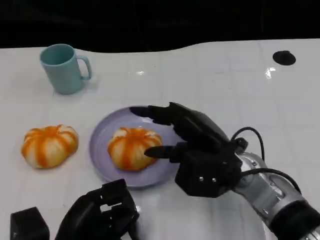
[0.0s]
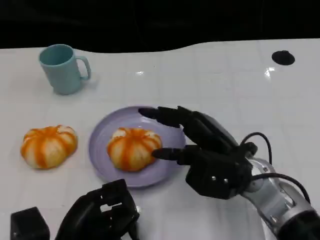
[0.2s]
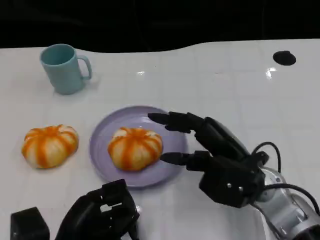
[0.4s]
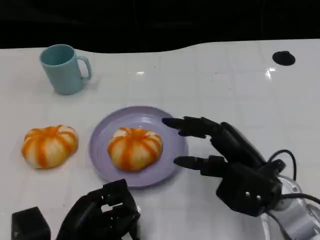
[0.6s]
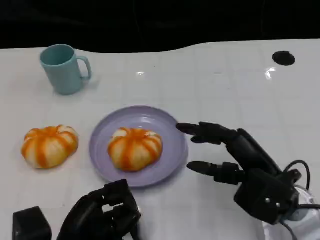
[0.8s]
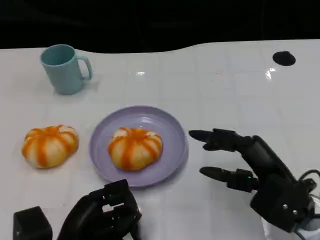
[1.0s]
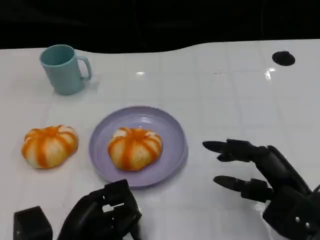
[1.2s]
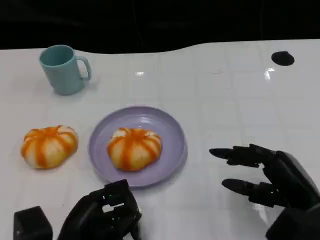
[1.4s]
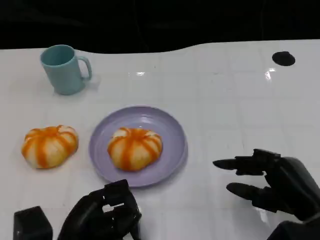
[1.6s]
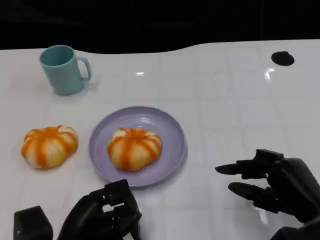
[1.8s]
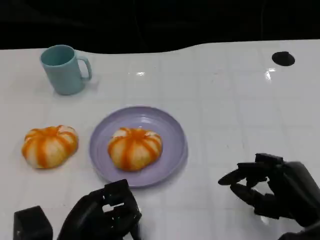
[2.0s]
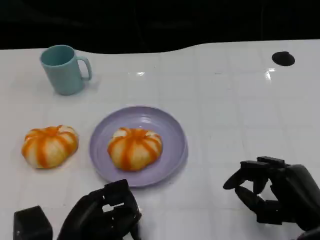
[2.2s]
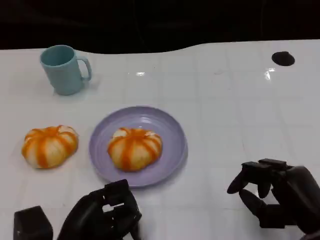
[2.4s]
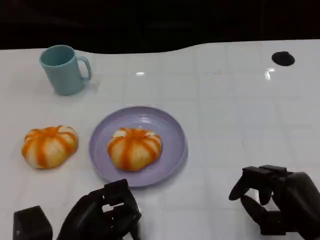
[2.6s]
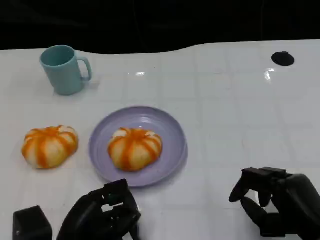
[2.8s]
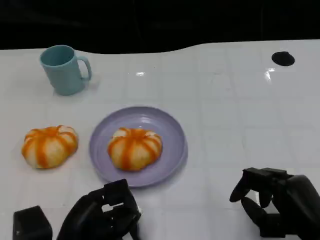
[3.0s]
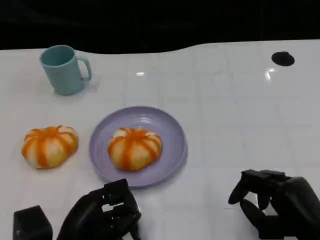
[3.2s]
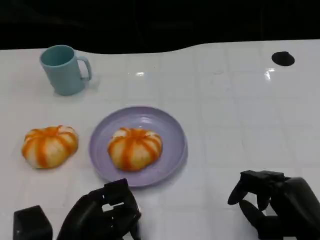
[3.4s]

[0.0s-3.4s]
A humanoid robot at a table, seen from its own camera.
Task of the whole recording: Grasp the bread from the table and place it into the plate.
0.0s to 1.6s: The right hand shifts some 15 cm to the right and backward.
1.6s to 3.4s: There are only small adjustments of the hands.

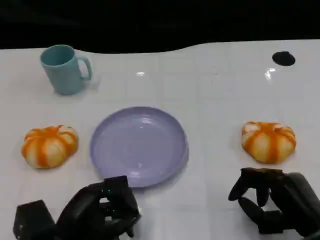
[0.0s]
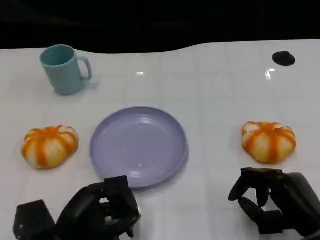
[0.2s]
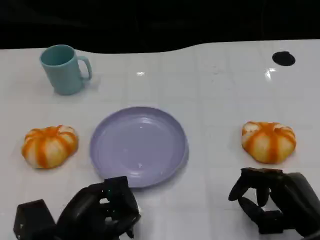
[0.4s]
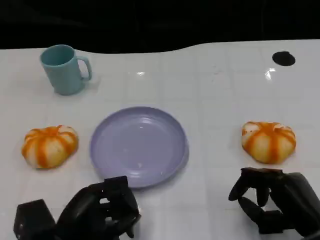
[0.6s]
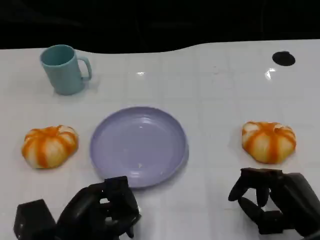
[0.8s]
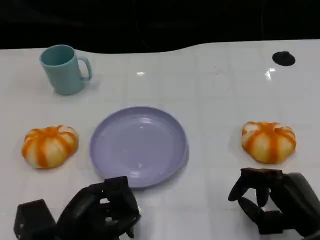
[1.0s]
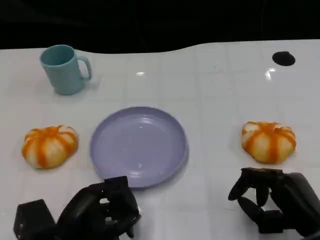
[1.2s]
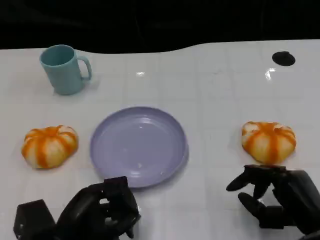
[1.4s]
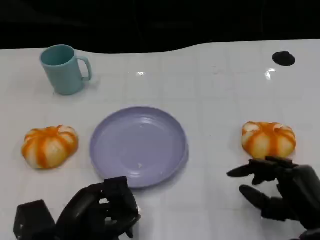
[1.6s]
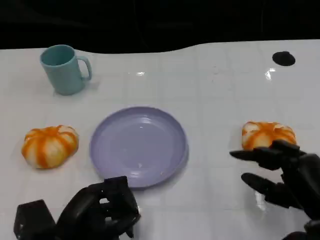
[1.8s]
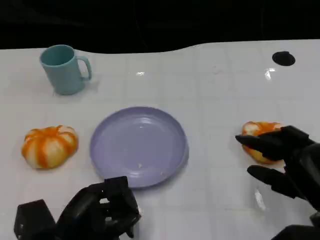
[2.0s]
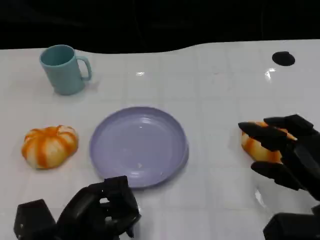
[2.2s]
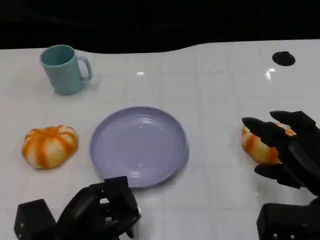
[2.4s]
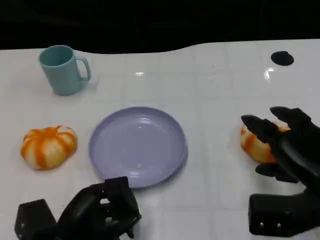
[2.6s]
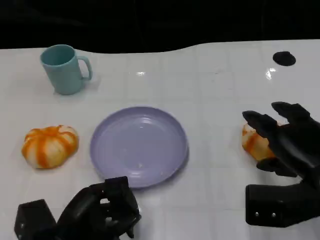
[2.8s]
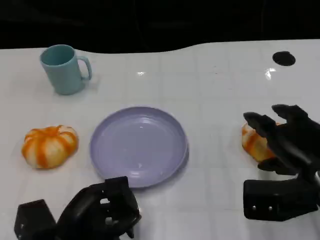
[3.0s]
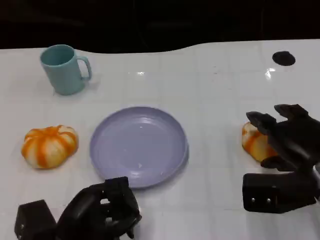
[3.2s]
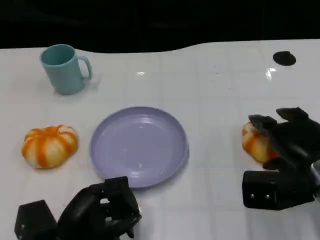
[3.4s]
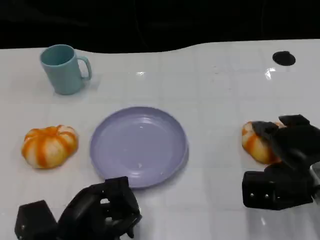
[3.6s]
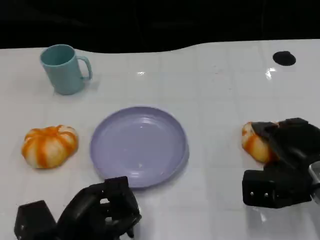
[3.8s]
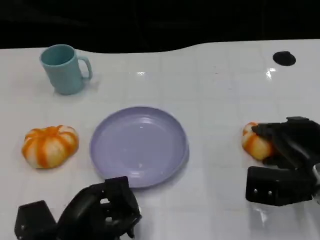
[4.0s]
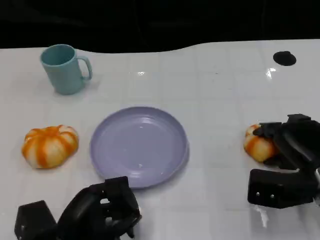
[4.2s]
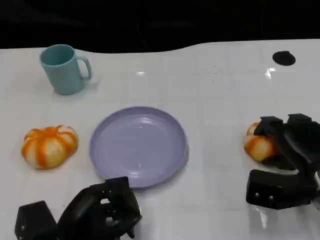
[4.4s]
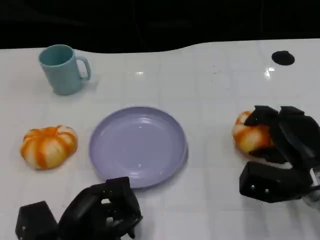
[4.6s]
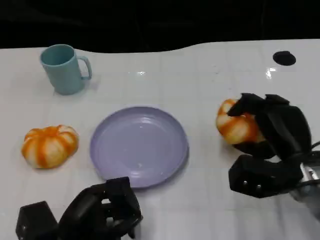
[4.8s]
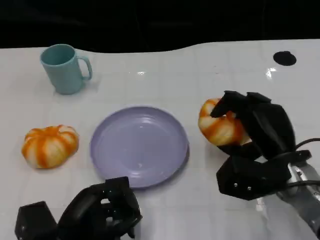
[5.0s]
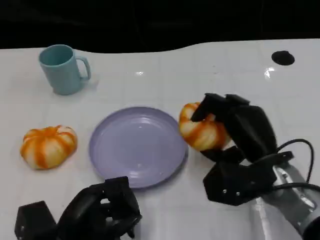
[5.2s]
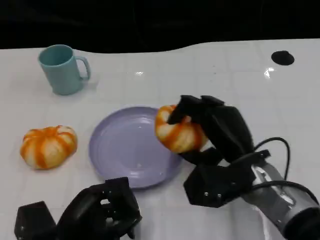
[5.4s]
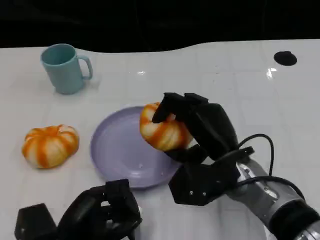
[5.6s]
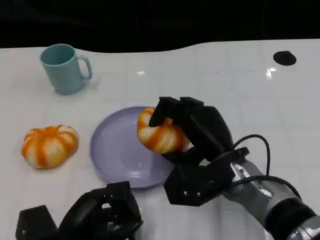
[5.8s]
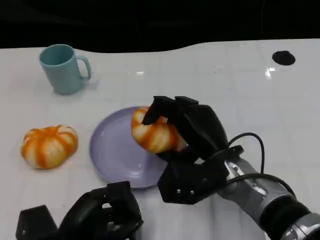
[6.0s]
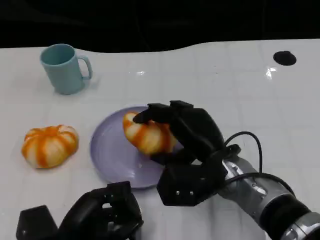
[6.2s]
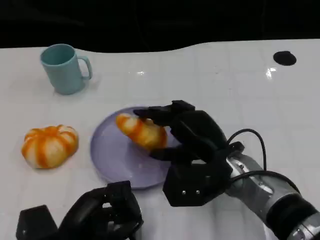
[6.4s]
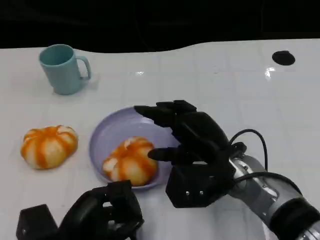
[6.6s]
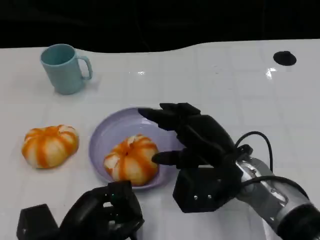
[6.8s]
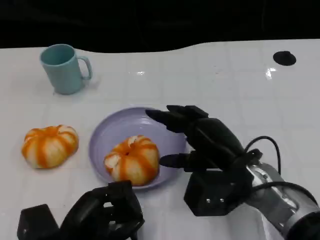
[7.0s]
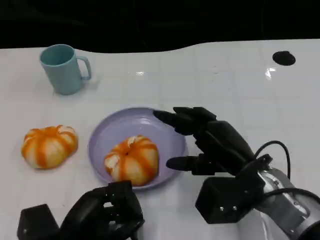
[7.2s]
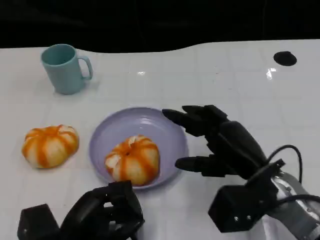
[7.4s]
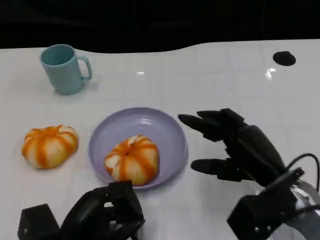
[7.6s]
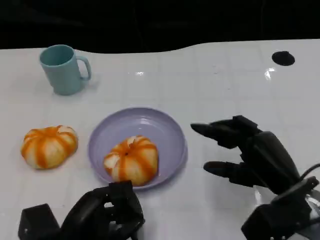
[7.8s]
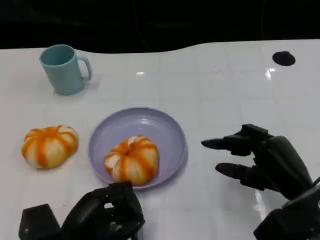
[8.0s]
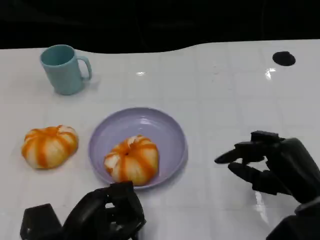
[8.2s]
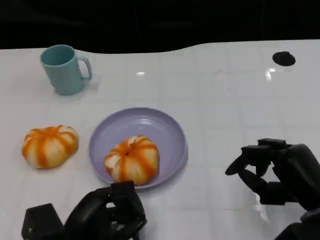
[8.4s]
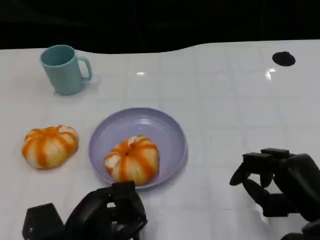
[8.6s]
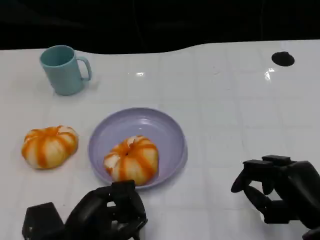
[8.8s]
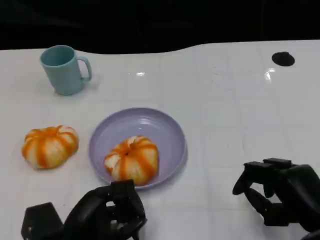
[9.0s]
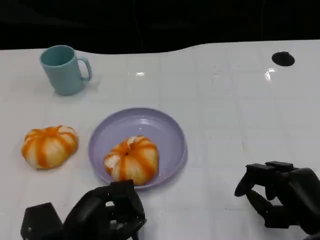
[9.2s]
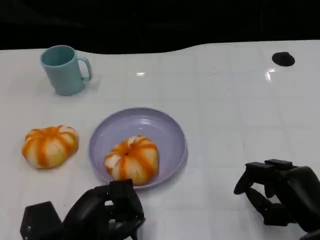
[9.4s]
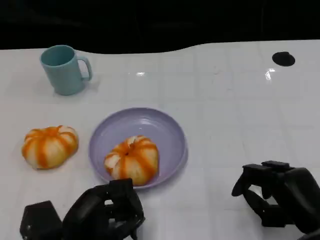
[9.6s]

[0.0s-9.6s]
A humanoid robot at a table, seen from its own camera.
Task of the whole recording: Grasp the bread from the table and place it into the plate.
0.0s to 1.6s: The hands stay close to where they were, moving slightly.
1.6s to 3.2s: The right hand heads forward, covering some 5 cm.
4.8s to 6.4s: The right hand heads to the left, covering about 10 cm.
6.4s to 8.0s: The right hand travels to the right by some 10 cm.
8.0s to 9.6s: The right hand changes place by about 5 cm.

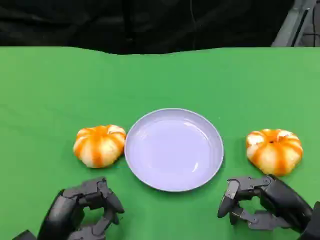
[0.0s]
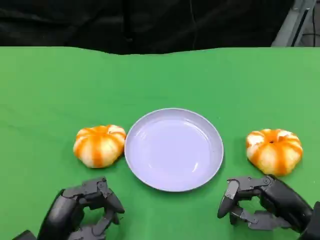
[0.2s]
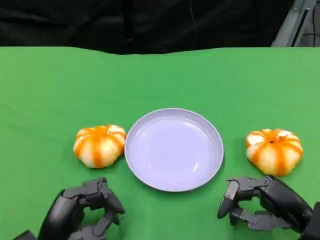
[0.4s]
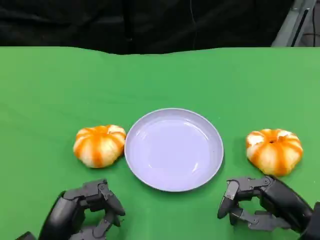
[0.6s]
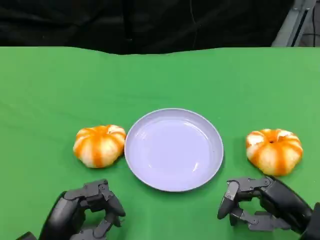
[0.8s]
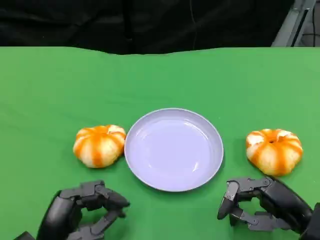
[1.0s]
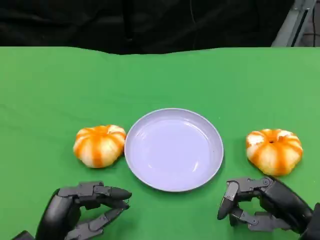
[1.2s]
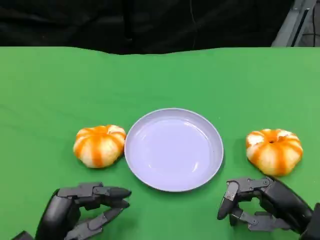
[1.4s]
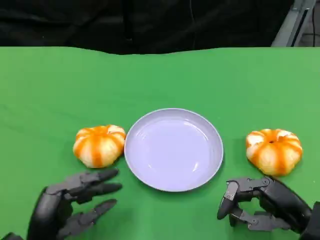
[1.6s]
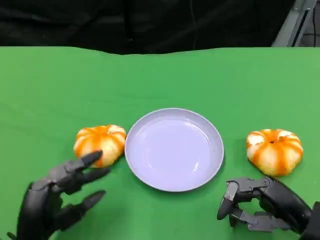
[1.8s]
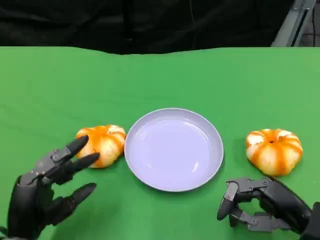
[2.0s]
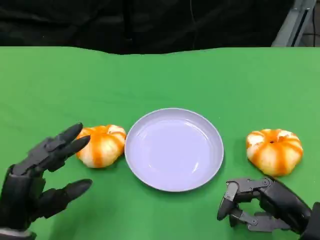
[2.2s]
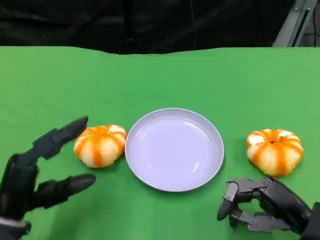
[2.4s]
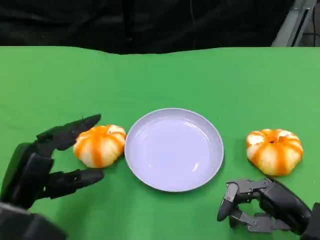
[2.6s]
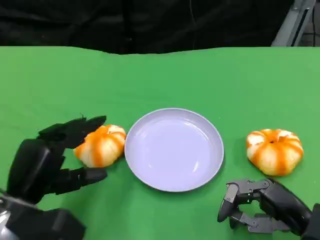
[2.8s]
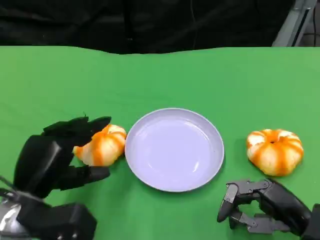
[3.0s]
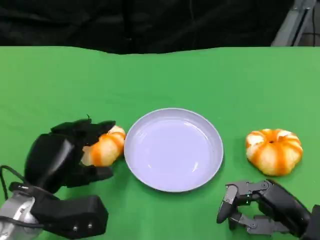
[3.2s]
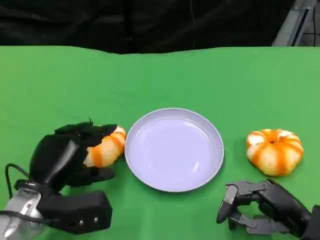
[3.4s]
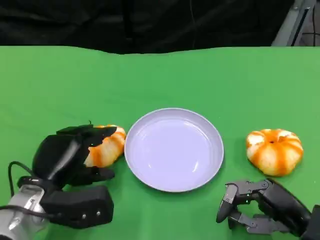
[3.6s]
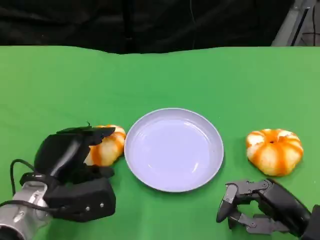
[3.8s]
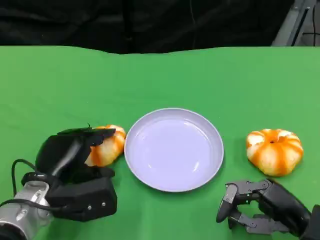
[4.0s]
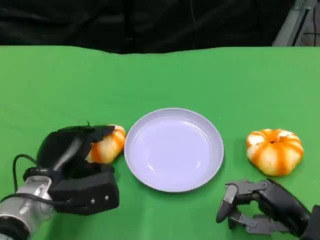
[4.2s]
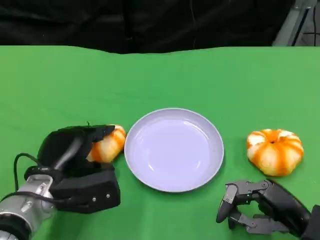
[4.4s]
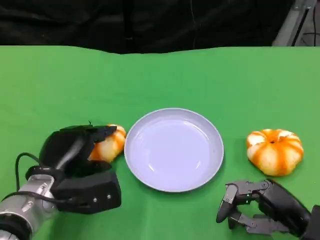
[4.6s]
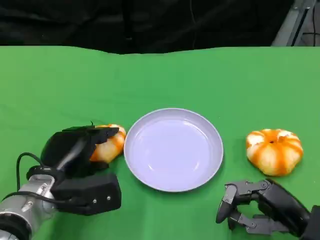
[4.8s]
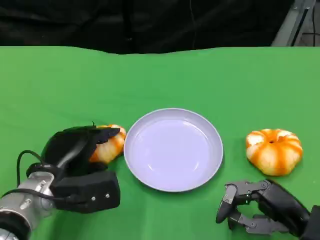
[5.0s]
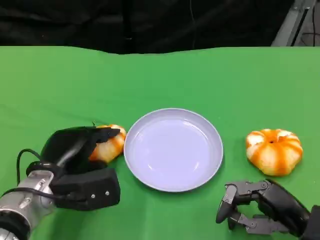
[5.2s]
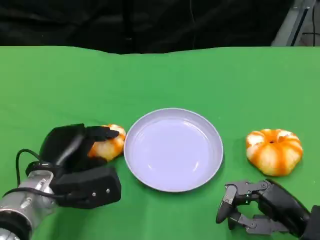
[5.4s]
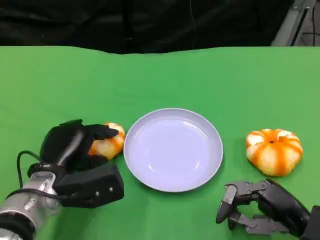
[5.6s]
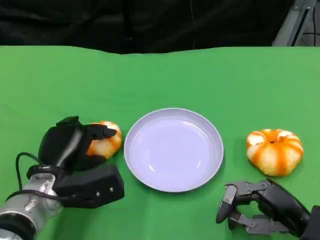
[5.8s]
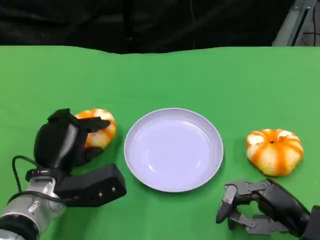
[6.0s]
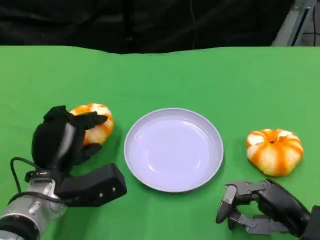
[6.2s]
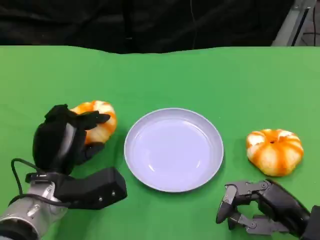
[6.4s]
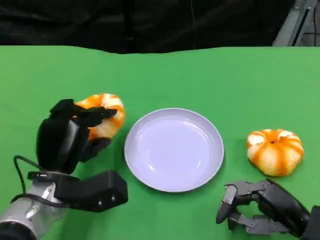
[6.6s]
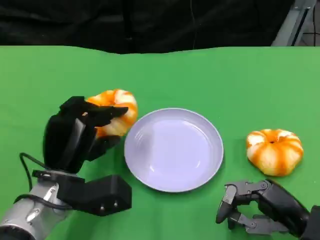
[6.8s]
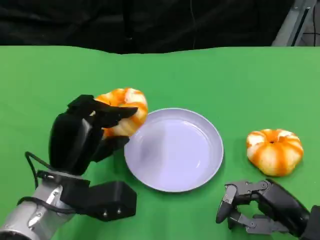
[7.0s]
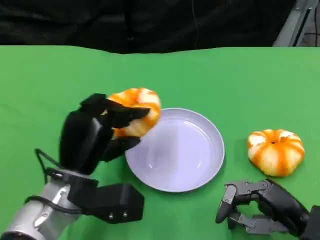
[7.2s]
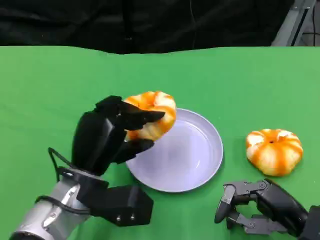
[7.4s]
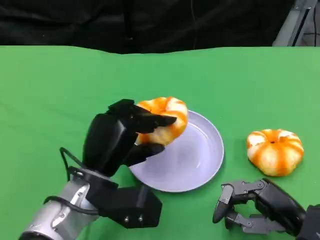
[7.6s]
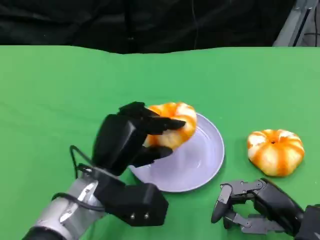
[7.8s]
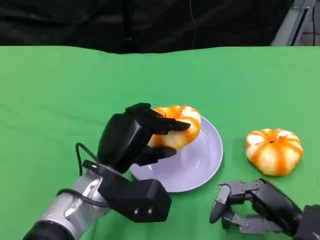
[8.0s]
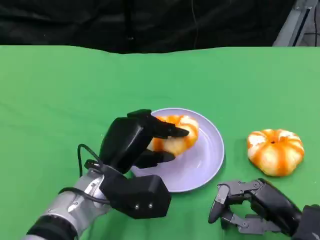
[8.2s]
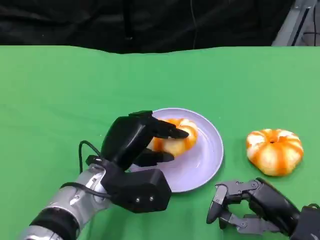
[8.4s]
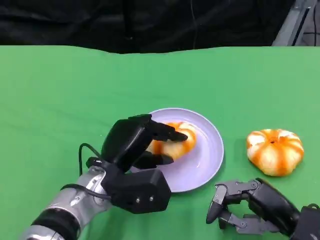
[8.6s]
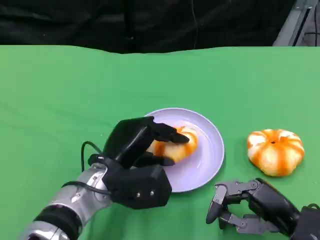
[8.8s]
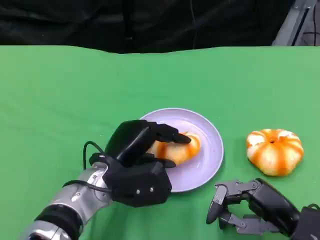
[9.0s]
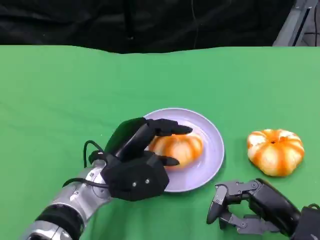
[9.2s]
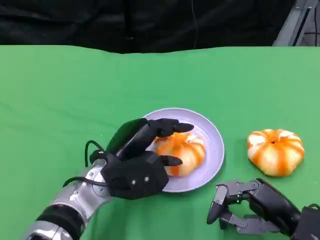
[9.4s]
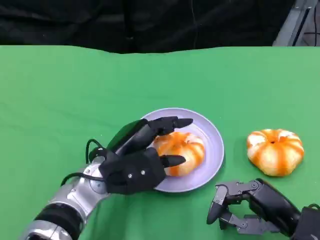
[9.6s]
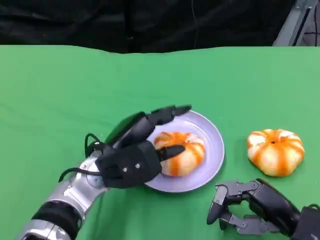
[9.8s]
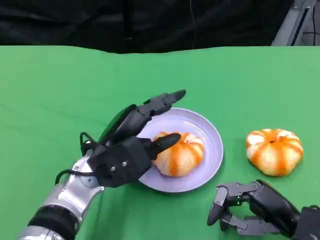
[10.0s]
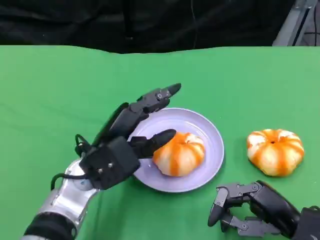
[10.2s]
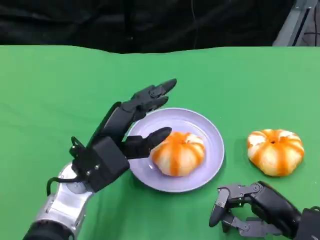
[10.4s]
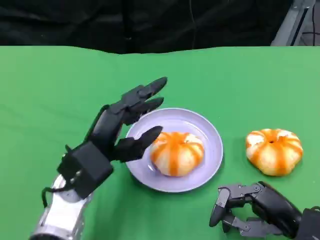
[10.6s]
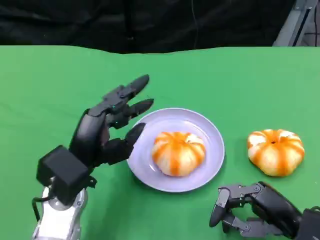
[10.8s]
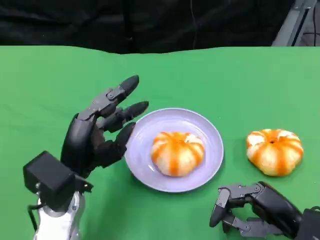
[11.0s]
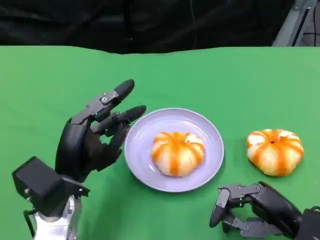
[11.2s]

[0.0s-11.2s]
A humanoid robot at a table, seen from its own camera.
Task of the whole recording: Grasp the bread from the table and place it into the plate.
0.0s to 1.6s: The hands move only a little.
1.6s to 3.2s: The left hand heads forward, covering about 5 cm.
3.2s to 4.8s: The hands move only a little.
6.4s to 8.0s: The left hand heads to the right, covering some 5 cm.
9.6s to 11.2s: The left hand heads to the left, covering roughly 5 cm.
